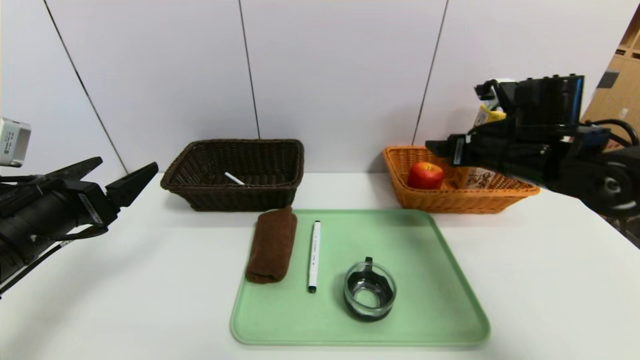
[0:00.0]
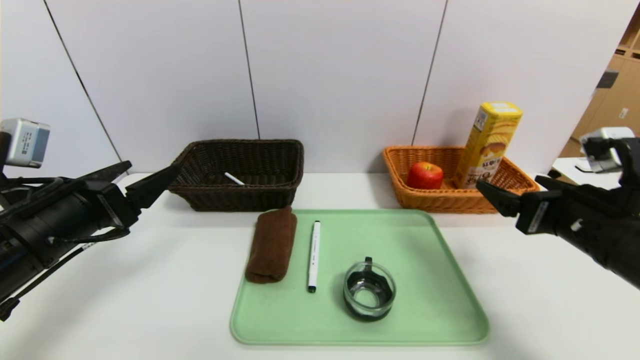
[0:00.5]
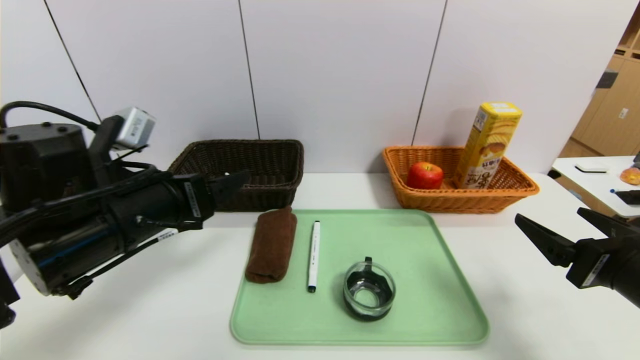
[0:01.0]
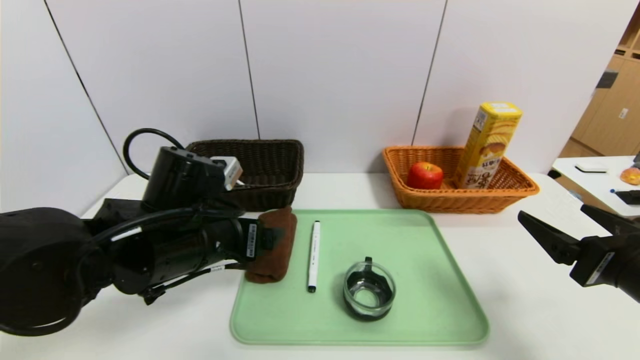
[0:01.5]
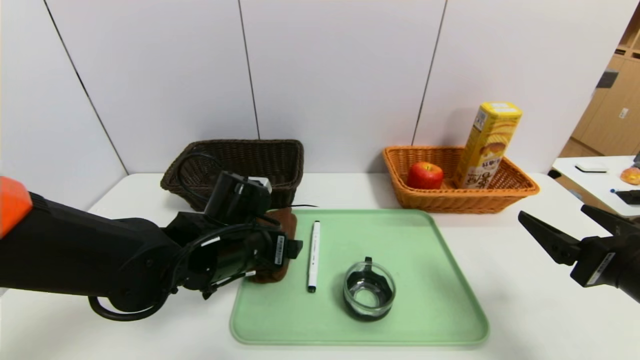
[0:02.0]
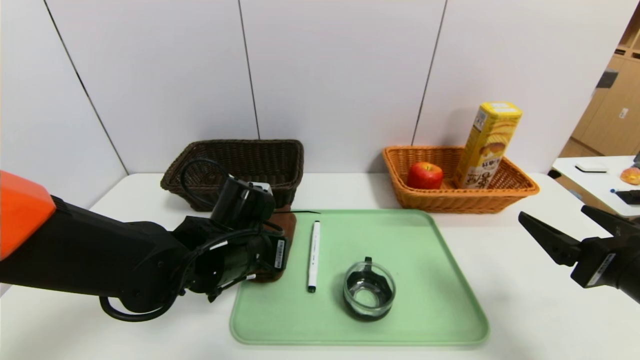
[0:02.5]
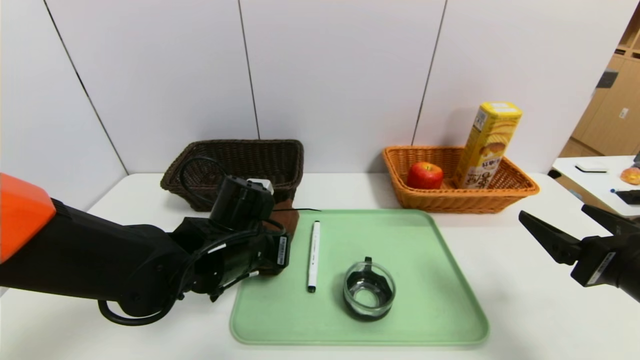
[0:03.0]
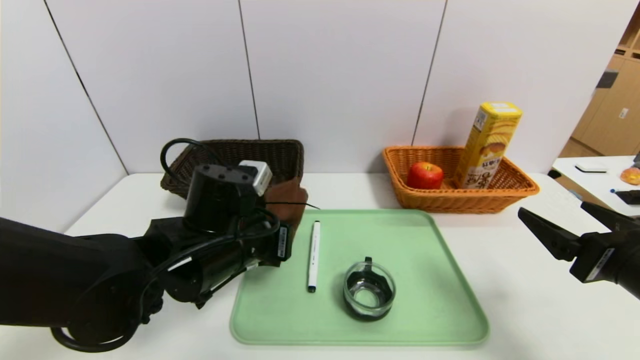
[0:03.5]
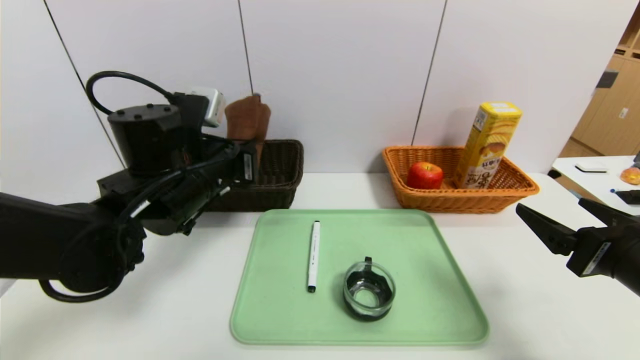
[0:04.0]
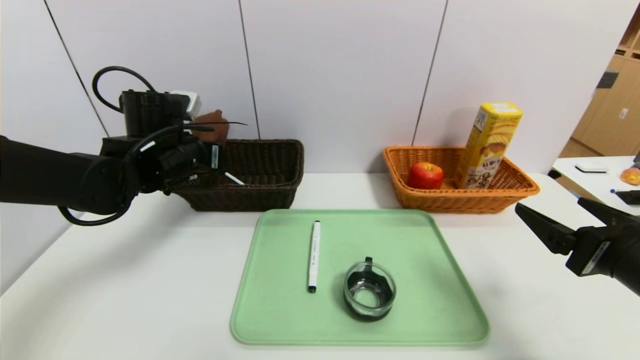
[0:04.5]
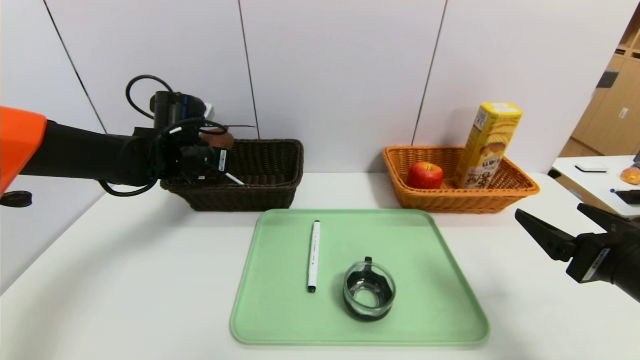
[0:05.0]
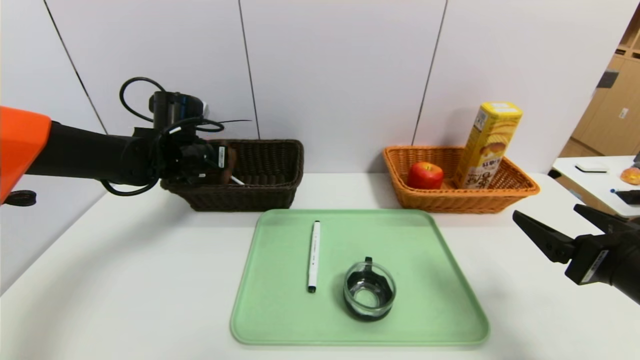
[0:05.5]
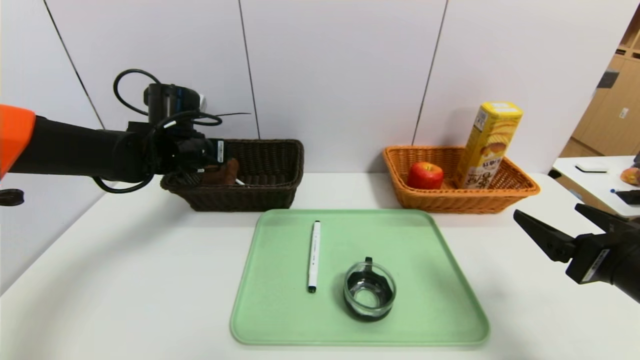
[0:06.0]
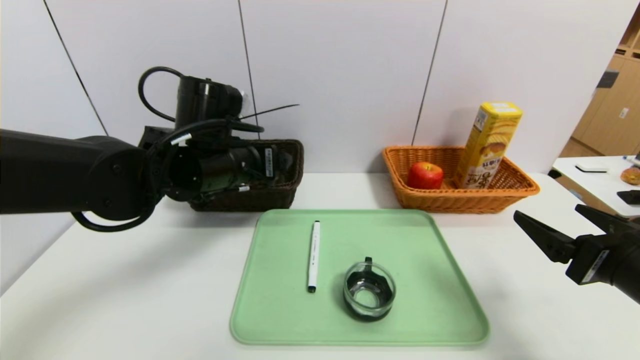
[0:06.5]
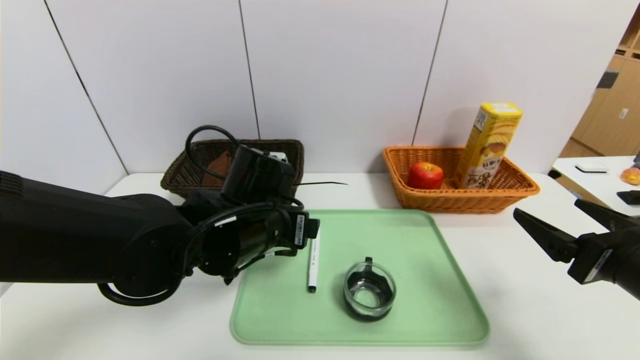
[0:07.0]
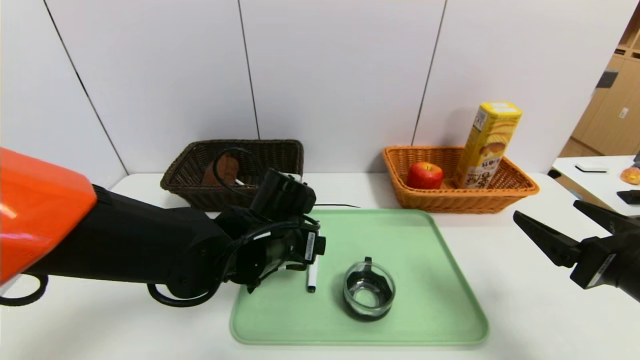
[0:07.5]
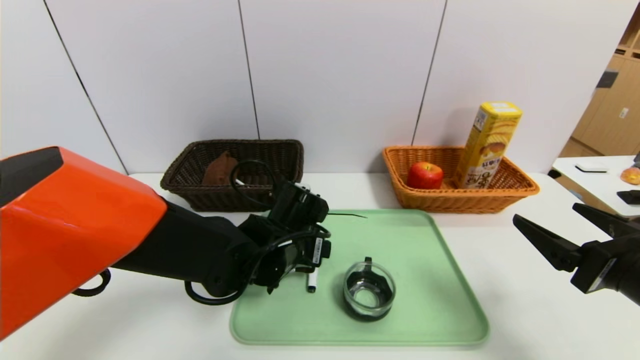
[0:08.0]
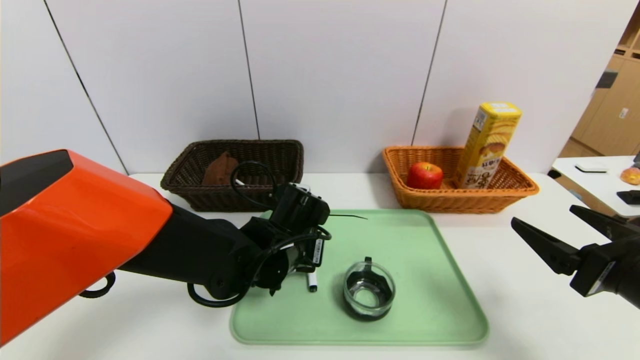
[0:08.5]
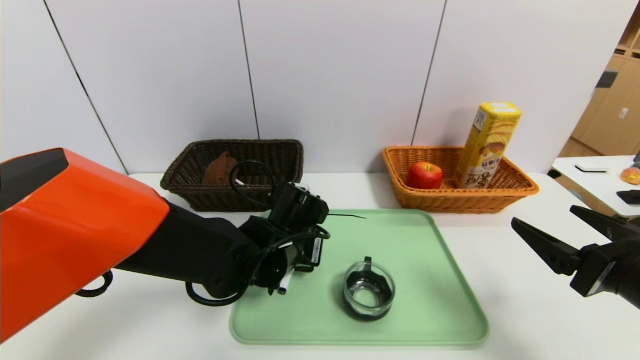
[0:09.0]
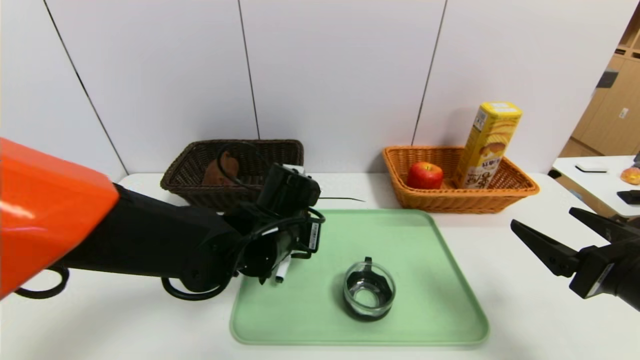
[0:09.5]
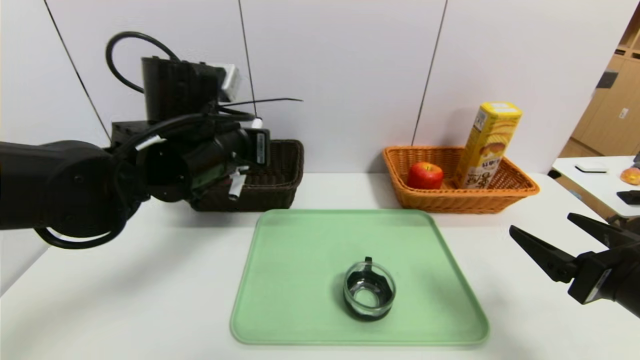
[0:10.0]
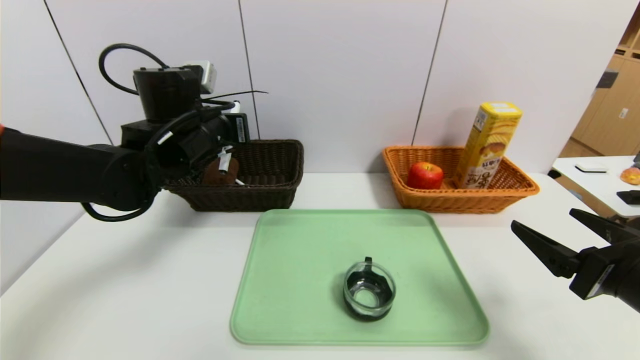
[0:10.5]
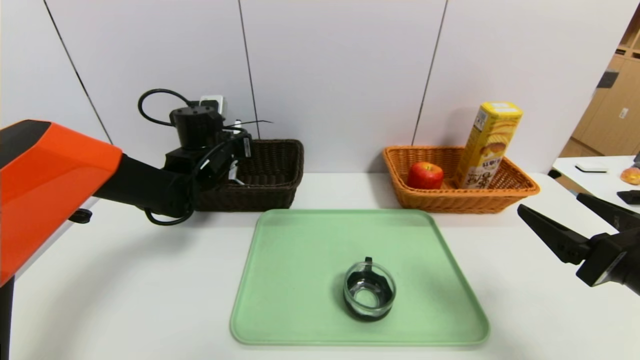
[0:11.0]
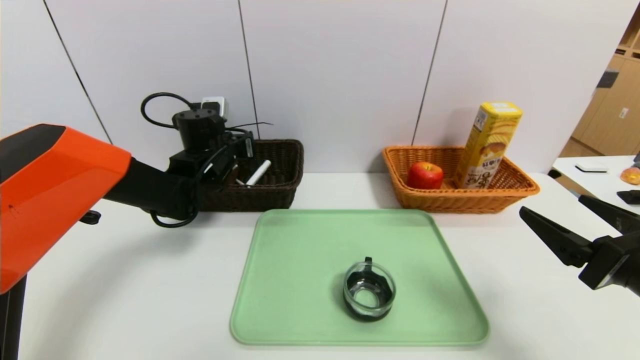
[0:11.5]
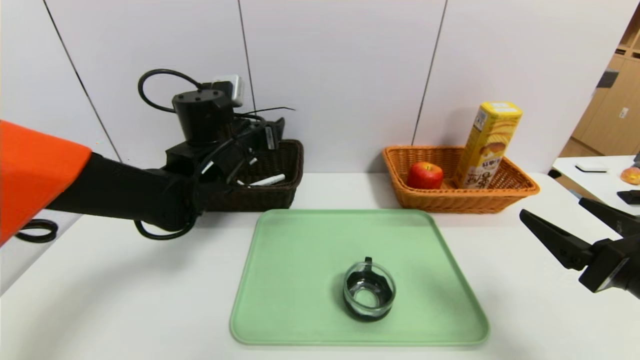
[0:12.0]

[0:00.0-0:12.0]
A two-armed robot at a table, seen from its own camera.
Task of the whole recording: place the food in the right basket with the right gripper, and place the non food items in the left basket with the left gripper.
Step, 0:00.5 to 0:06.0: Grasp the brown towel and put it in the left basket.
0:00.0 to 0:02.0: The right gripper travels backward by some 20 cm, while the left gripper moves to the right, some 20 cm.
0:02.0 to 0:04.0: The left gripper is displaced upward by roughly 10 cm, and closes up.
0:04.0 to 0:06.0: The left gripper is displaced forward and to the left by some 10 cm, and opens up.
0:06.0 to 0:08.0: The left gripper heads to the right, backward and downward, covering approximately 20 cm.
0:08.0 to 0:10.0: The left gripper travels upward and to the left by approximately 15 cm, and closes its fingers.
0:10.0 to 0:12.0: The left gripper travels forward by some 5 cm, and opens its fingers.

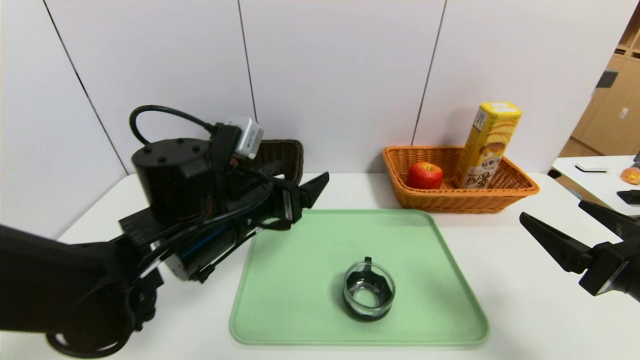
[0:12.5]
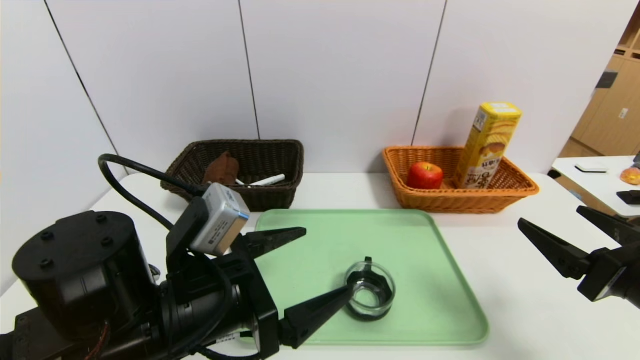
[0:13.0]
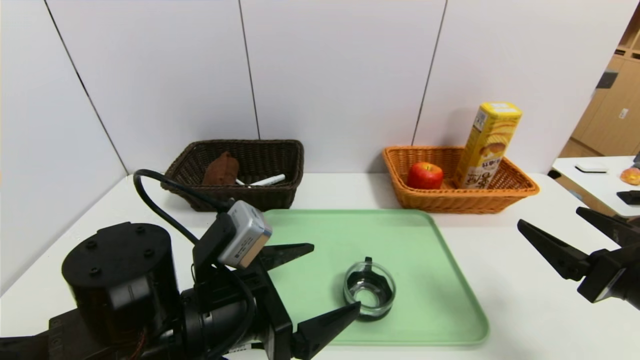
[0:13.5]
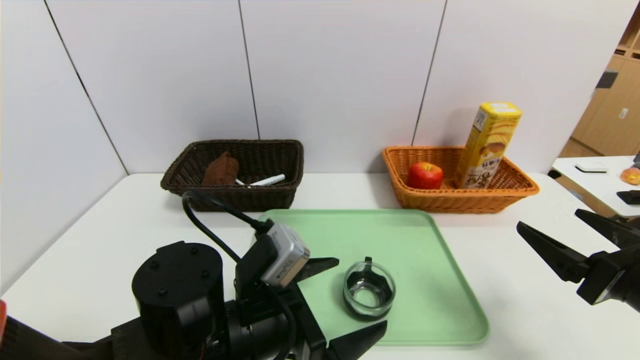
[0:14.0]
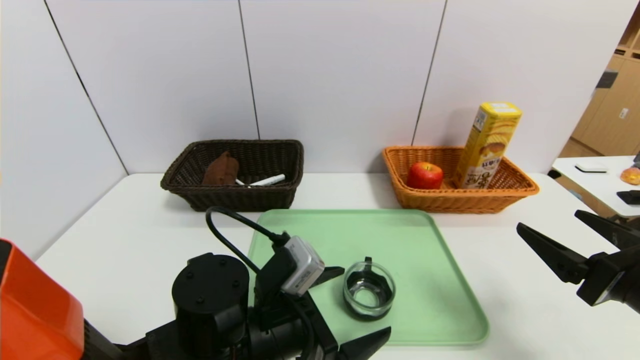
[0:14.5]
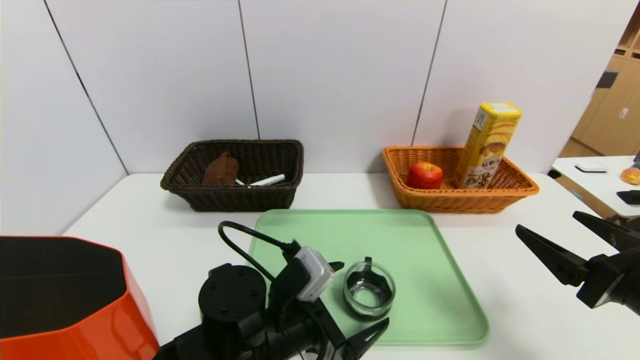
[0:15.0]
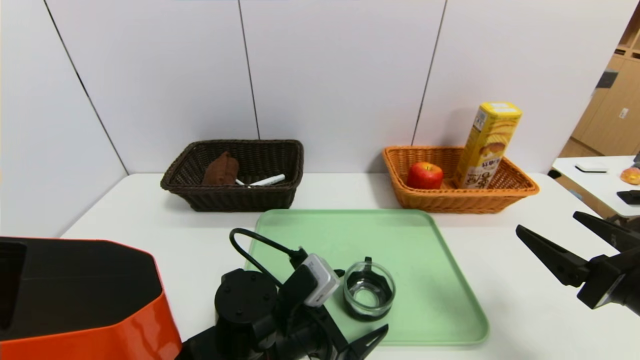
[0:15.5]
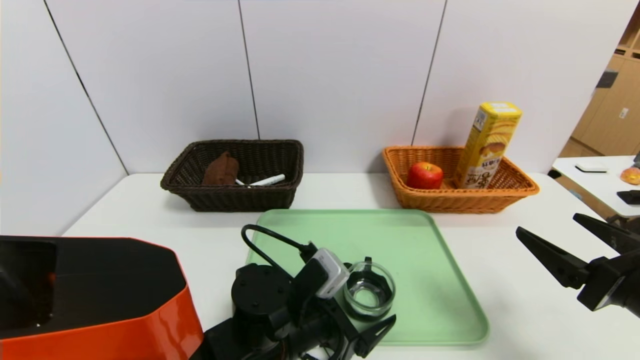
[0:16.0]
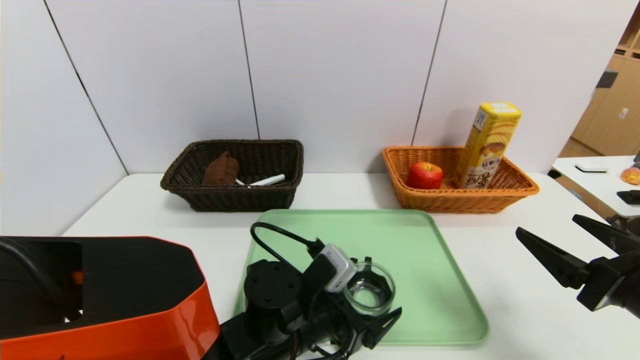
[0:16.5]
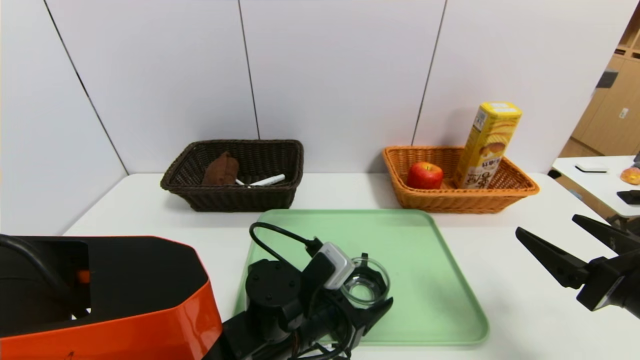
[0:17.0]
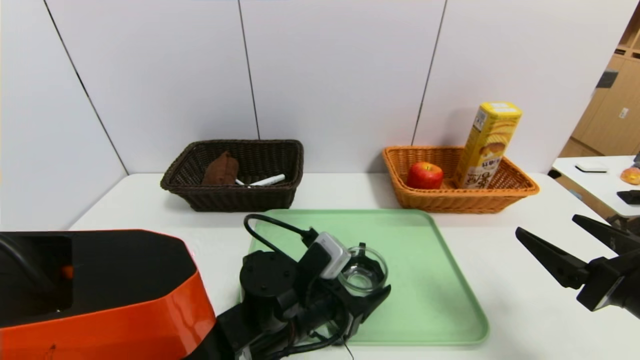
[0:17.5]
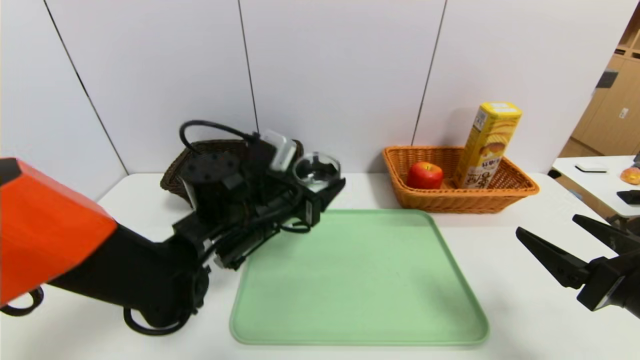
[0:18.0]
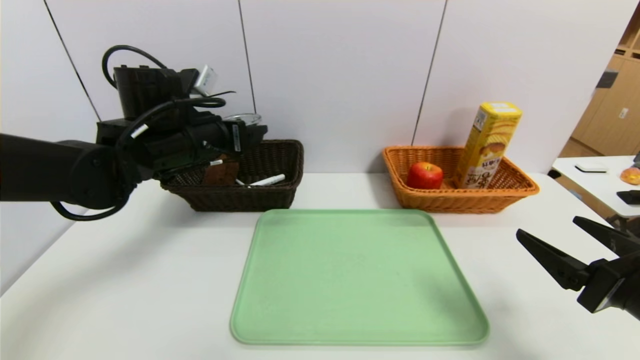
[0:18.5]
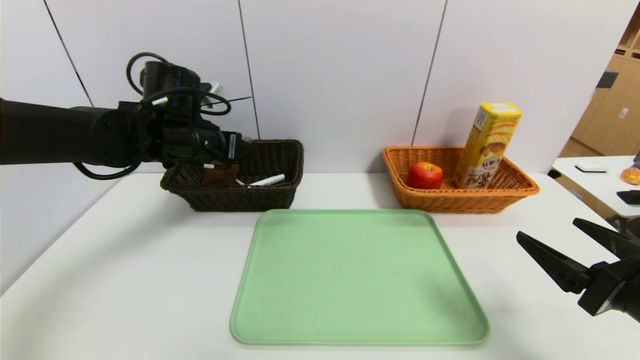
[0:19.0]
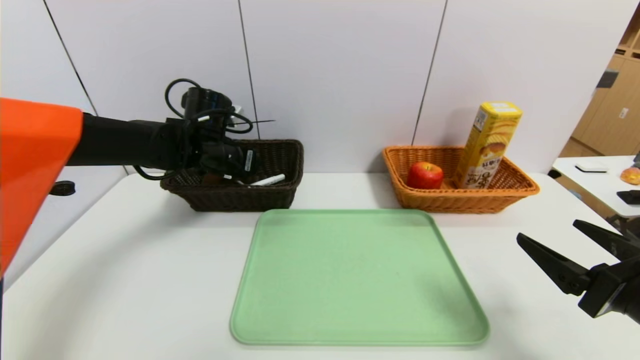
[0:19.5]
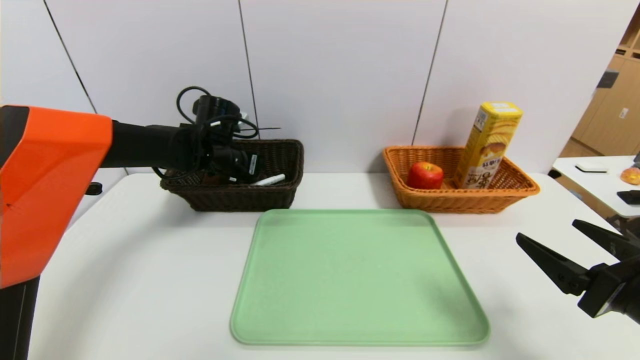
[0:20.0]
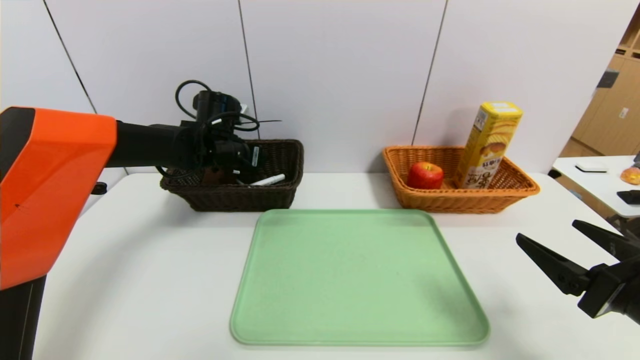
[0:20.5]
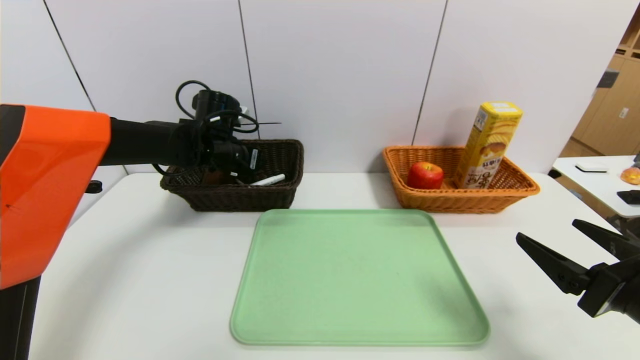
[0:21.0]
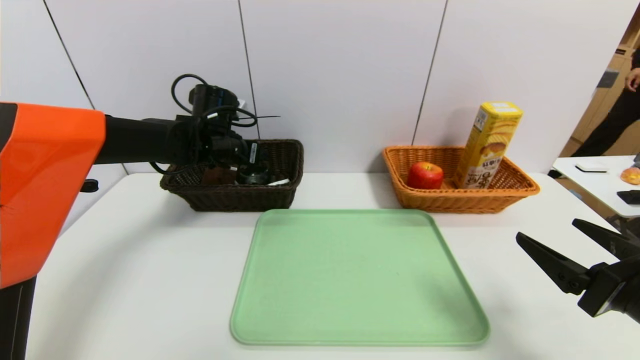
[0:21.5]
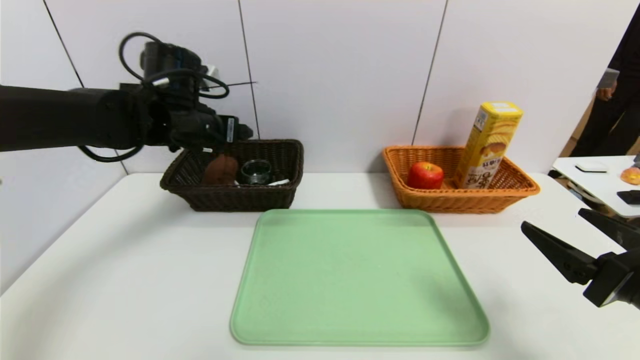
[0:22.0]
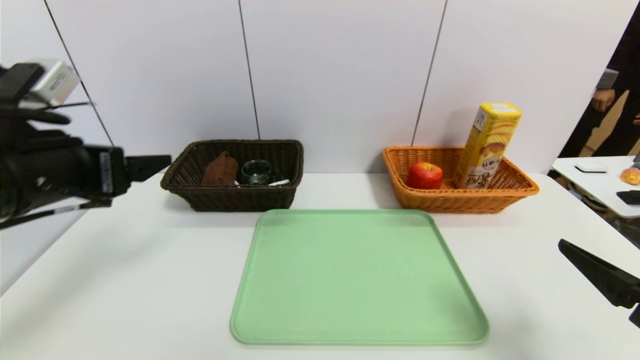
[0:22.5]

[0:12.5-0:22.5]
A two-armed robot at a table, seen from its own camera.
Task of the whole recording: place the food in the right basket with the right gripper, and place the non food items in the left basket with the left gripper.
Step, 0:12.5 to 0:21.0: Grasp the blue cup and put it in the left basket.
0:12.5 to 0:14.5: The left gripper is displaced downward and backward by roughly 10 cm.
0:14.5 to 0:16.5: The left gripper moves about 5 cm.
0:16.5 to 0:18.5: The left gripper heads upward, to the left and forward, covering approximately 25 cm.
0:18.5 to 0:20.5: The left gripper shifts roughly 10 cm forward and downward.
0:20.5 to 0:22.5: The left gripper is displaced backward by roughly 25 cm.
